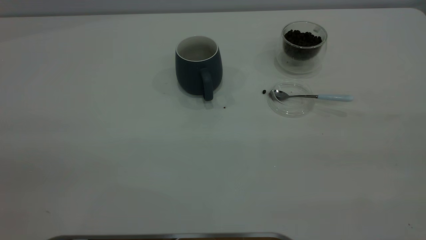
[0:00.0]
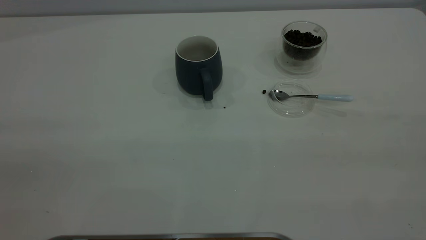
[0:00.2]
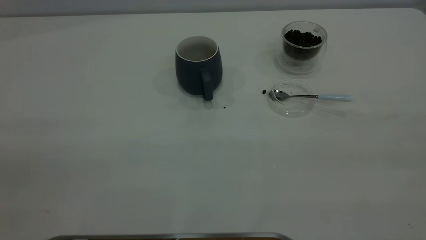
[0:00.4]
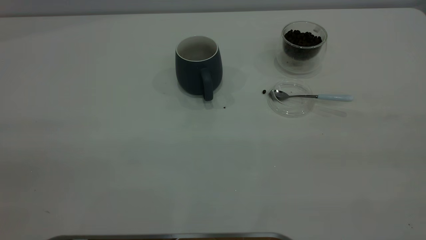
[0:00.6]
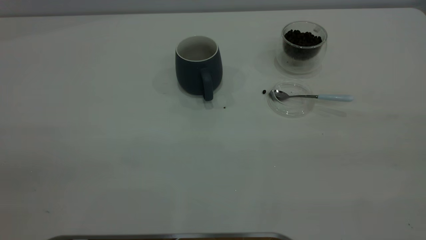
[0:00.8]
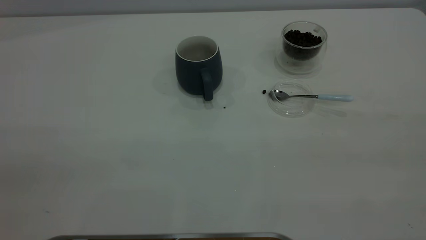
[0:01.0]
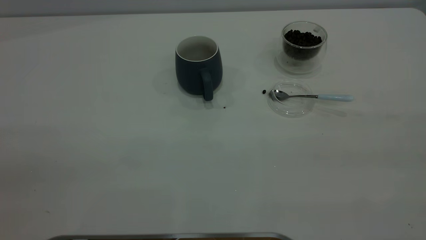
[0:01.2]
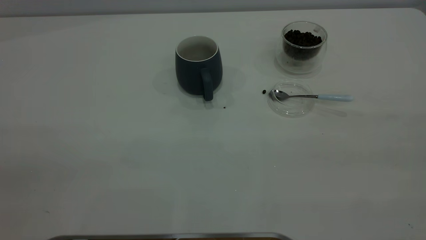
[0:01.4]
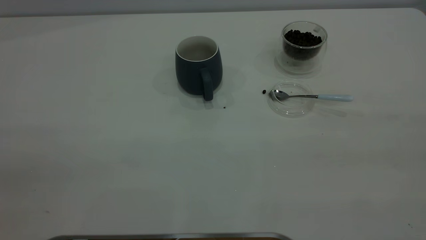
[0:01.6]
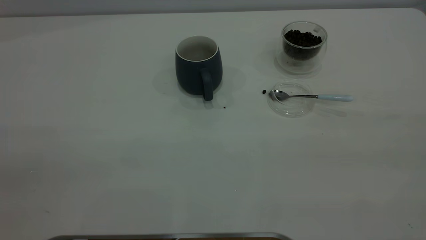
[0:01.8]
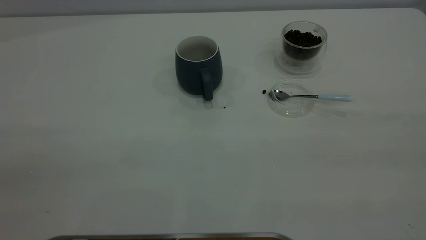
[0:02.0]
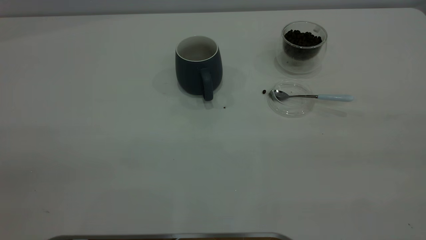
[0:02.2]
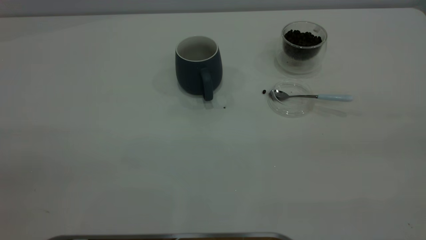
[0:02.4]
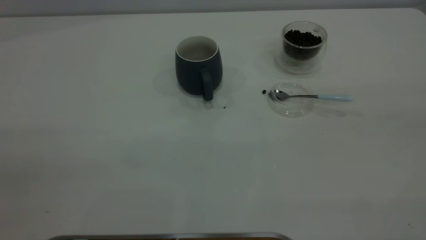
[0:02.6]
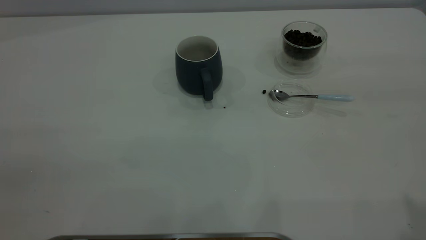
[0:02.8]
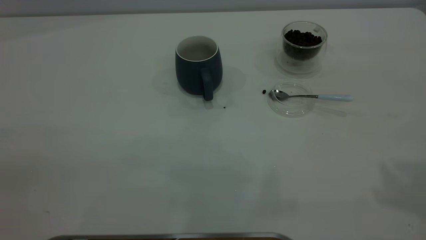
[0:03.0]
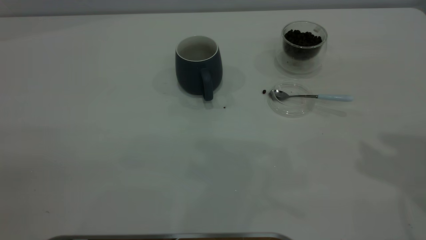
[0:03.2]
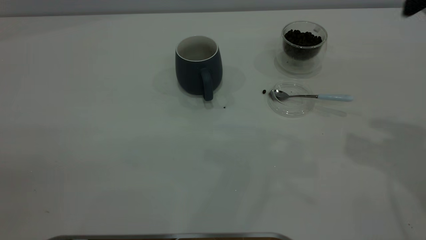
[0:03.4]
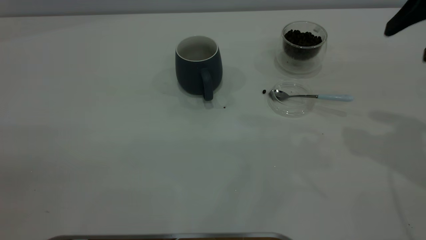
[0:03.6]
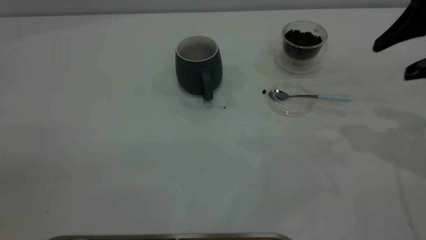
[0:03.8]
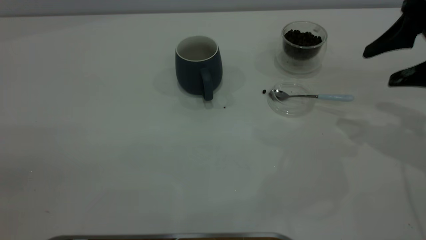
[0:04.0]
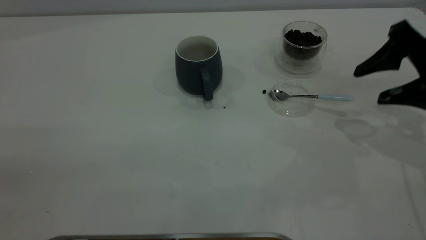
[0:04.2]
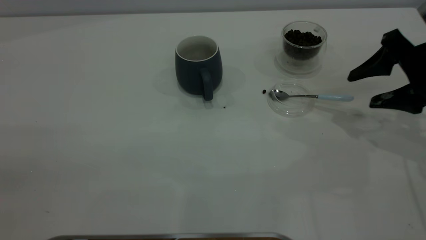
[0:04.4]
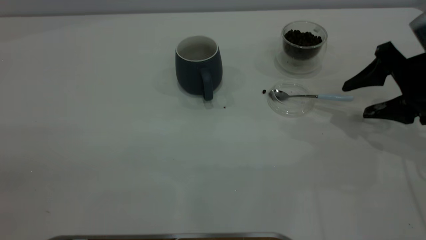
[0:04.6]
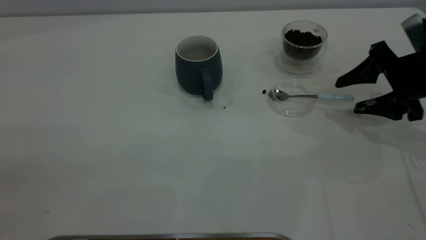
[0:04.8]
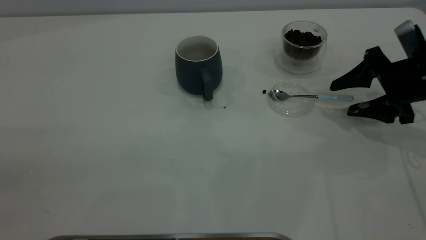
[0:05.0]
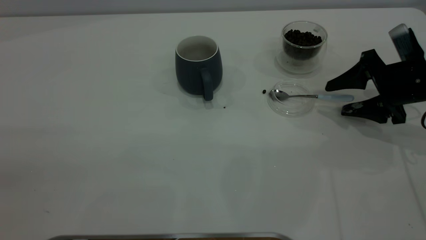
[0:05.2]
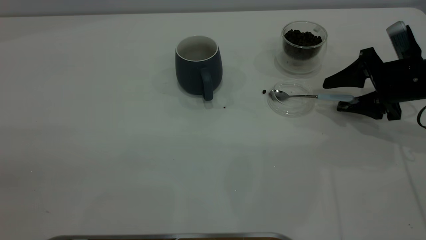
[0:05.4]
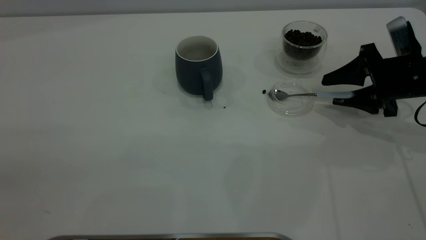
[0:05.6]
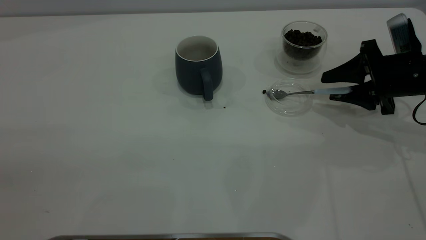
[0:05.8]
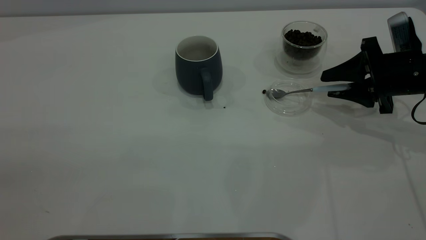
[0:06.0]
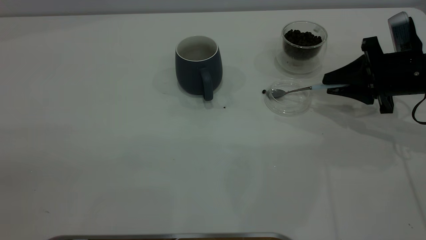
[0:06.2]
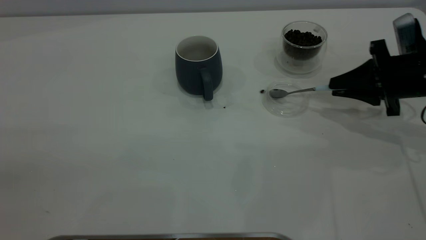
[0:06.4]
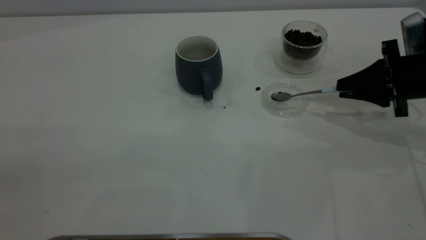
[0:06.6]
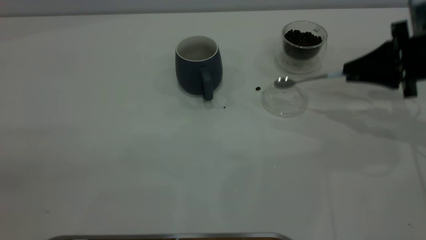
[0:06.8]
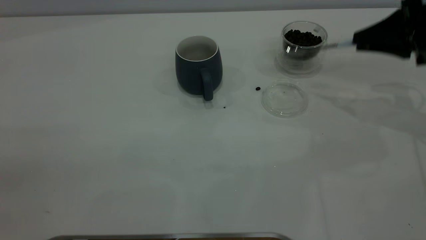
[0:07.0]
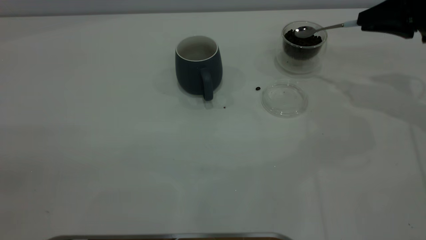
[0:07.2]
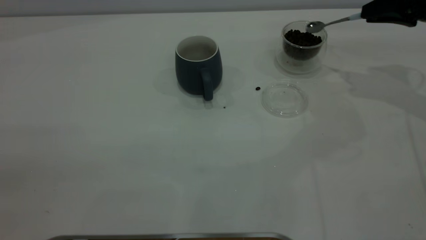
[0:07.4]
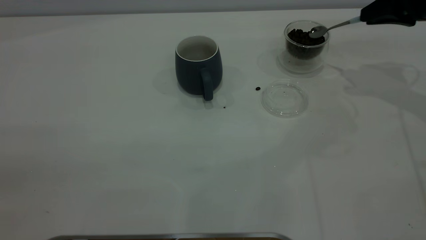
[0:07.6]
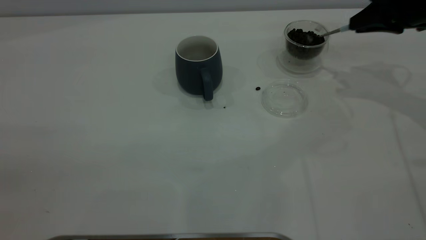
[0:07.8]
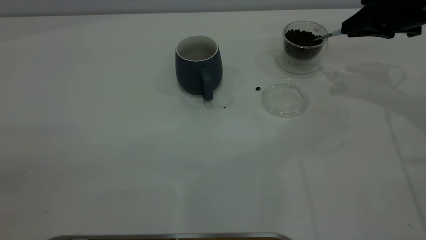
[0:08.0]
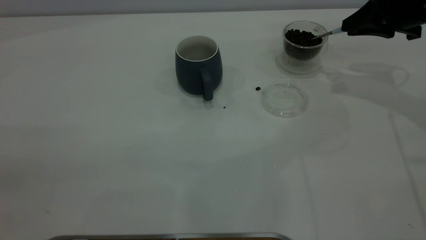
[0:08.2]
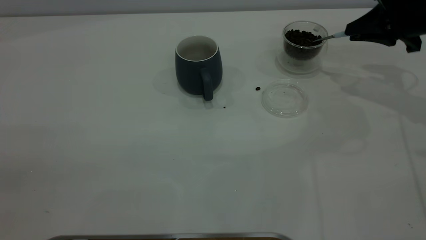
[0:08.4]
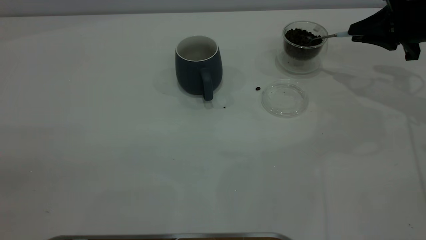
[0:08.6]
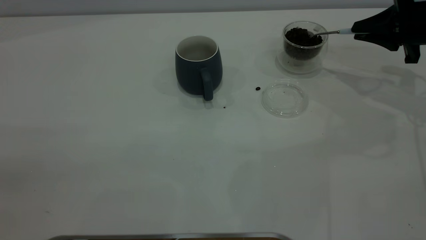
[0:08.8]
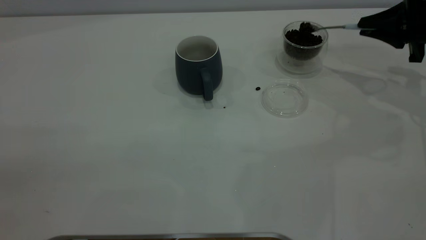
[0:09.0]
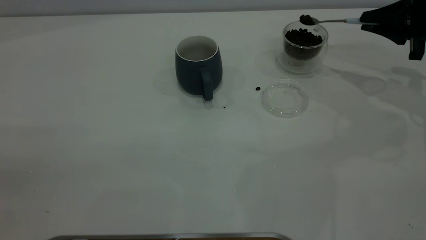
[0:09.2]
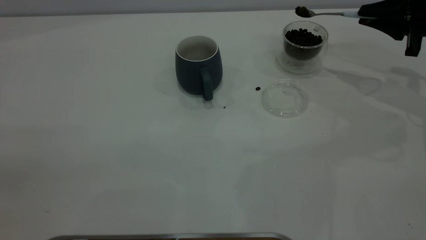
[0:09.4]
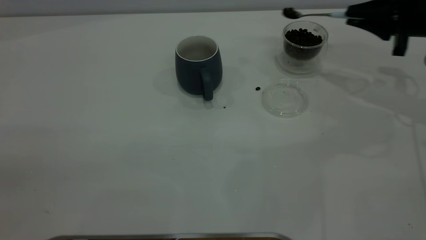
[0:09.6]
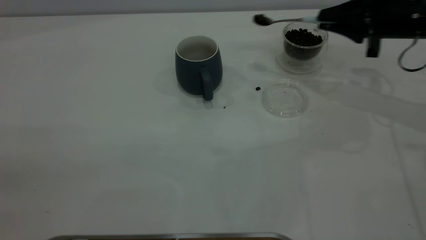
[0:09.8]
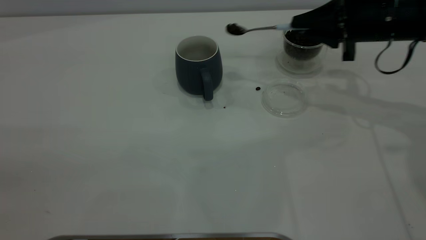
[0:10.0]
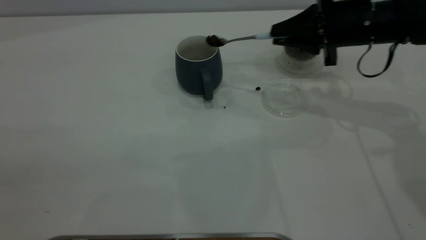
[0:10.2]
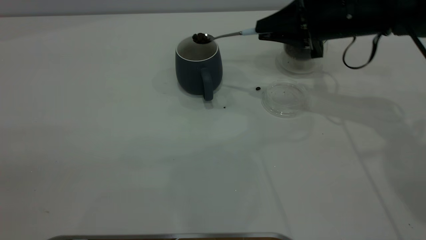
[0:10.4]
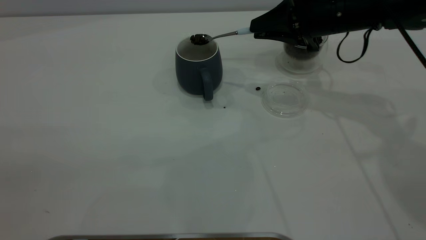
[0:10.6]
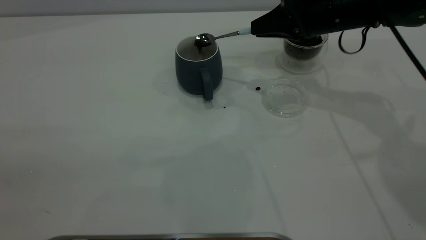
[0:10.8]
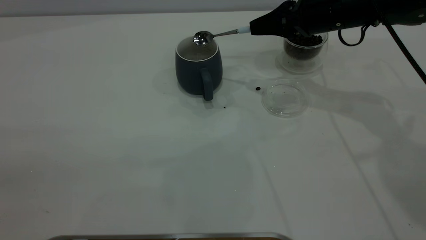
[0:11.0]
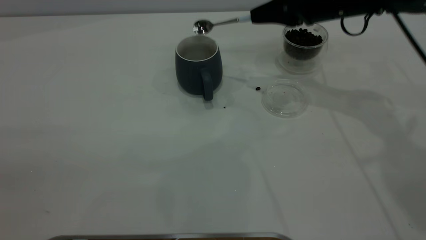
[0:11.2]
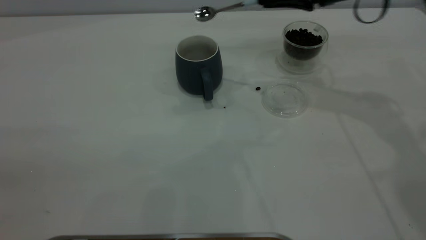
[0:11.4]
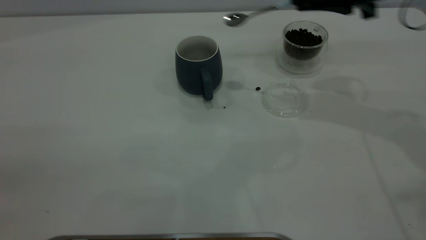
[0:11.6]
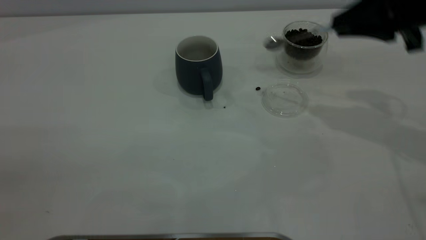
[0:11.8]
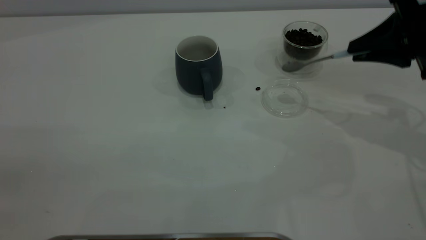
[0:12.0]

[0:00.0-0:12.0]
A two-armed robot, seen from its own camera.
Task of the whole recording: the left gripper place the grey cup in the center of the table, the right gripper take the blue spoon from the cup lid and scoop out the coffee beans from the coffee cup and put them into the grey cup, the right gripper put the spoon back into the cup lid.
Step, 0:00.0 to 0:06.8: Pick up the spoon.
Step, 0:07.0 to 0:11.4: Scoop a spoonful of beans into the cup.
0:03.0 to 0:04.4: The right gripper is displaced downward and forward by some 30 cm.
0:04.4 to 0:06.0: The right gripper ends up about 5 cm from where it was, and closes its fingers.
0:06.0 to 0:07.6: The right gripper is displaced upward and forward by approximately 10 cm, and closes its fingers.
0:07.6 to 0:09.0: The right gripper ends up roughly 5 cm from where it was.
0:09.0 to 0:10.4: The right gripper shifts roughly 15 cm to the left.
0:10.4 to 0:12.0: The right gripper moves to the right and backward, approximately 15 cm.

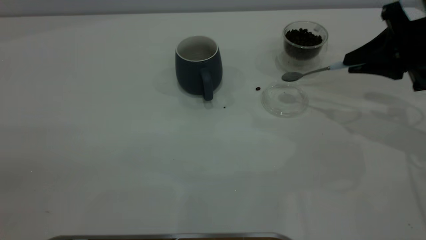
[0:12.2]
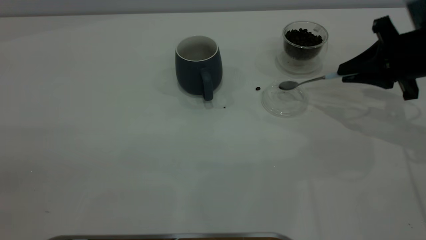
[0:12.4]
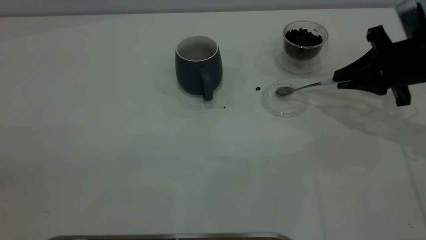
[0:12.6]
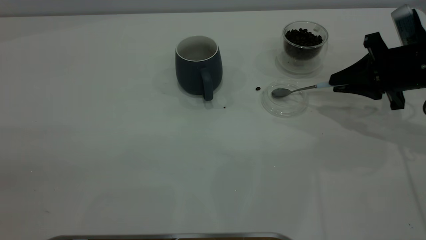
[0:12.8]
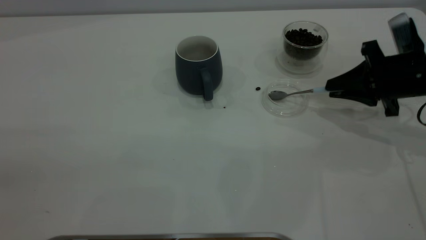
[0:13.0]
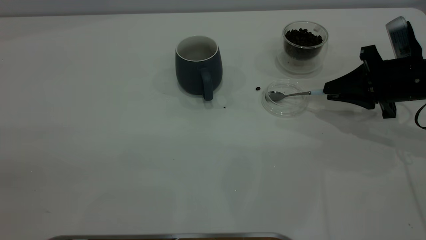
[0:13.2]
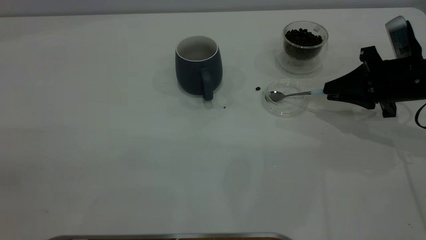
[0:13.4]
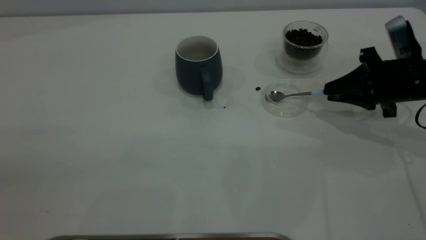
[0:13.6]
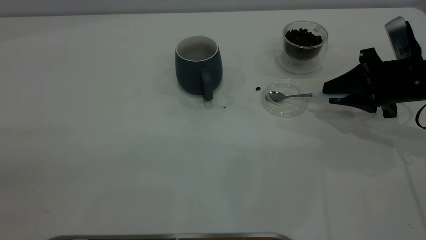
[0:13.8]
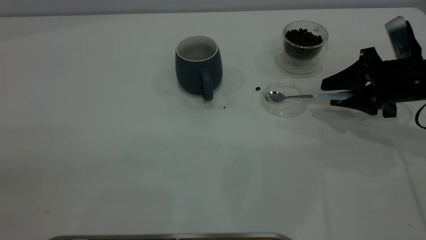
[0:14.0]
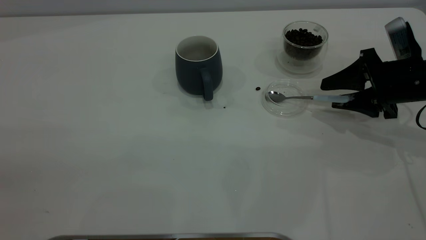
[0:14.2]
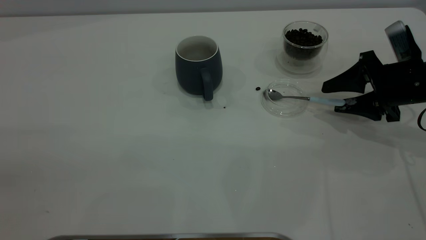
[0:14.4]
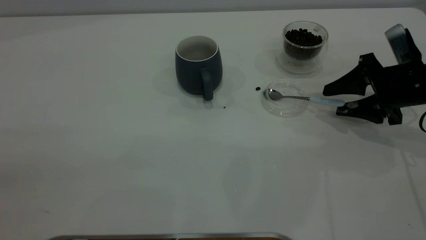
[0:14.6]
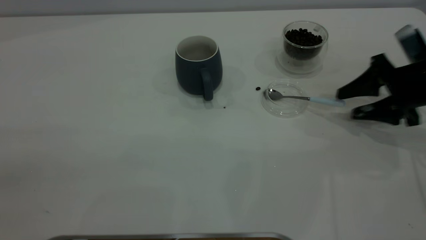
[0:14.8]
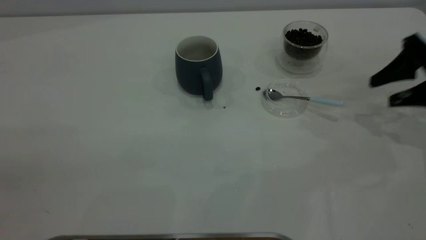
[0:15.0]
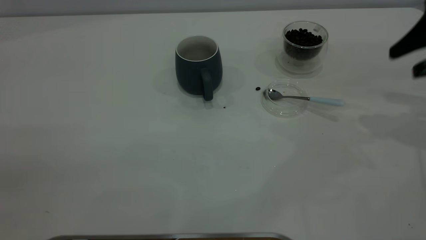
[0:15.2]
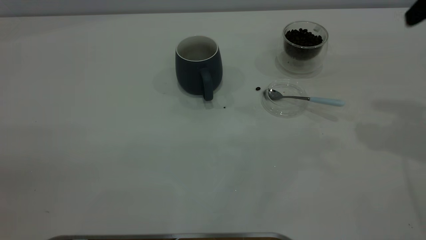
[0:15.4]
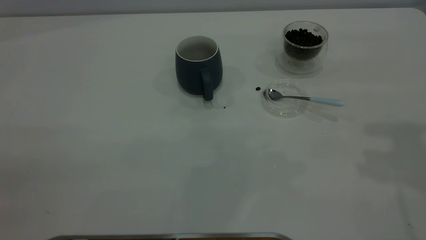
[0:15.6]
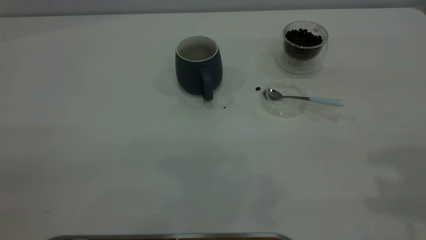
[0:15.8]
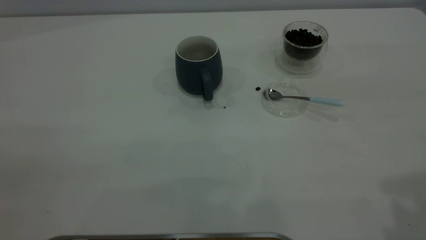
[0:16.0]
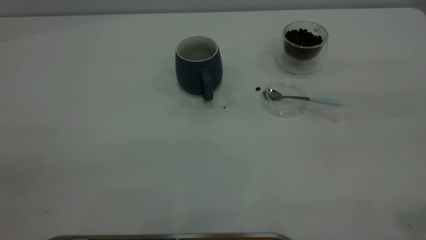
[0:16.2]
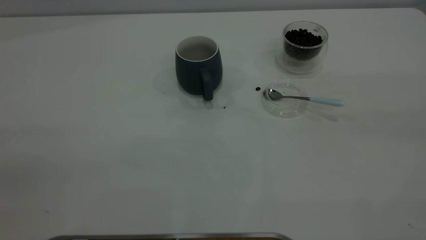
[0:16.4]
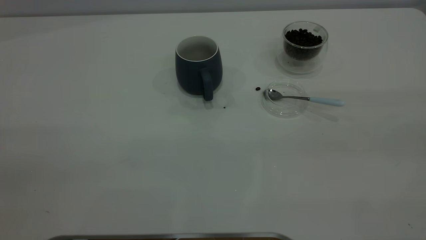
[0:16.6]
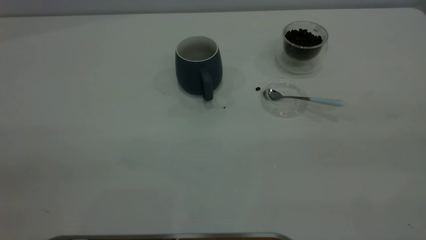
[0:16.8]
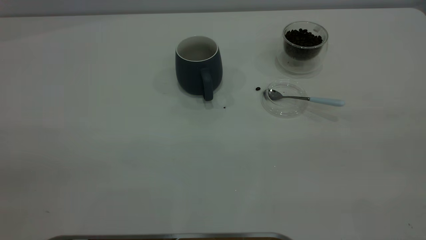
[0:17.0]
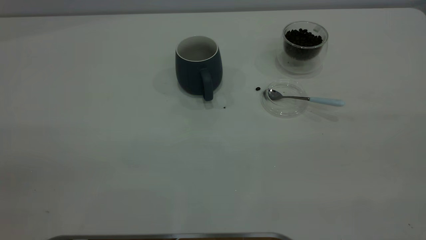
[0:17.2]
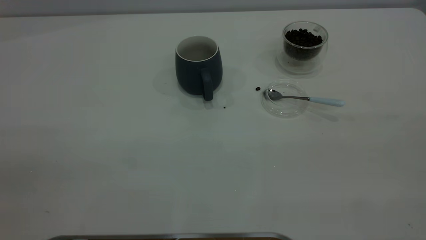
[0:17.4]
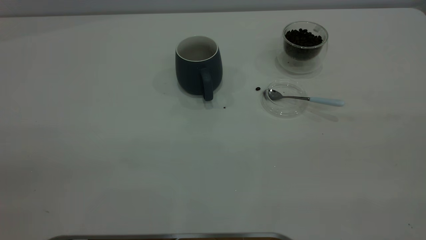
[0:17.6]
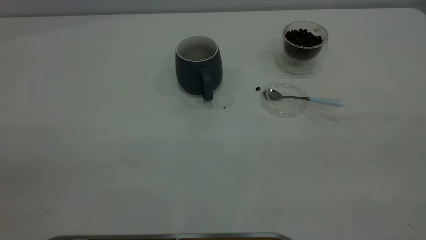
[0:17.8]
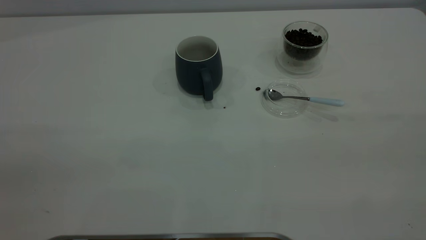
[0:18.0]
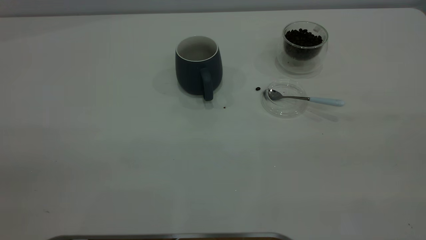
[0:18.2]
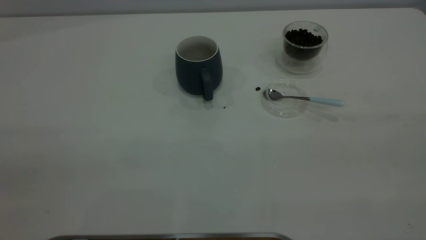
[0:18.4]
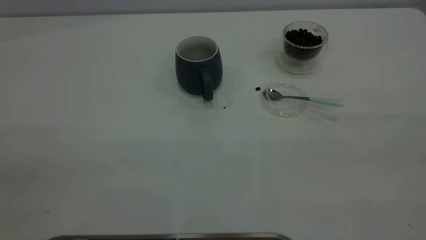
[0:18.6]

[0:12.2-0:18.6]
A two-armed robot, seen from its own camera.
Task of the whole recording: the left gripper place the grey cup in the center of the table, the right gripper take the blue spoon from the cup lid and scoop out the coffee beans from the coffee cup and put them into the grey cup, the right gripper put the spoon back into the cup lid.
Step, 0:12.2 to 0:14.8: Place the spoon back in its original place.
0:12.2 to 0:13.8: The right gripper is displaced downward by some 5 cm, and opens up.
0:13.8 to 0:15.4: The right gripper is displaced upward by roughly 25 cm, and opens.
